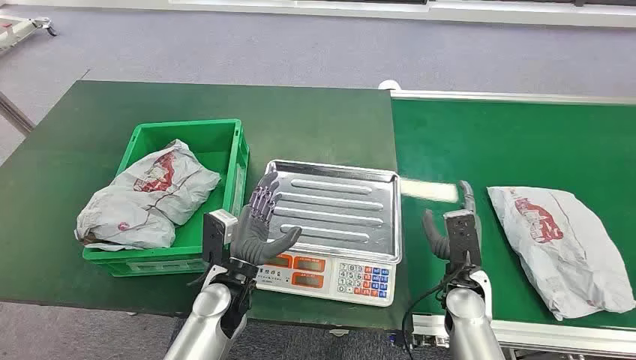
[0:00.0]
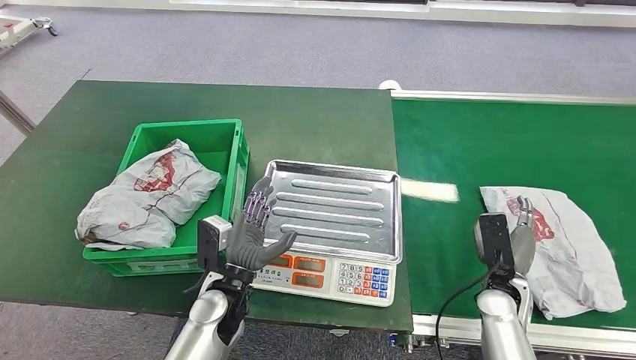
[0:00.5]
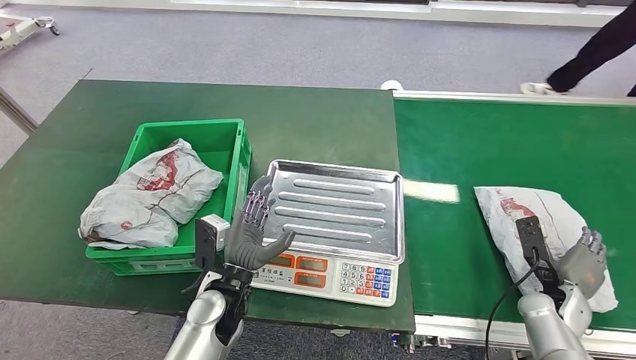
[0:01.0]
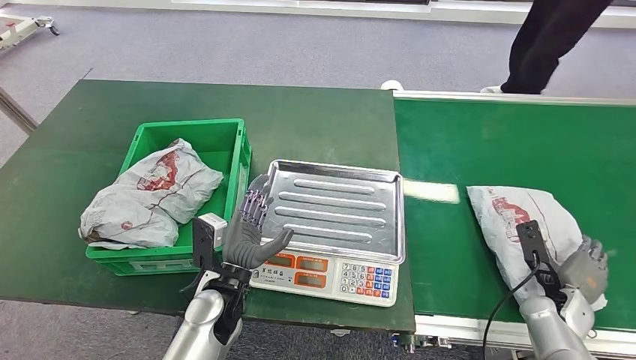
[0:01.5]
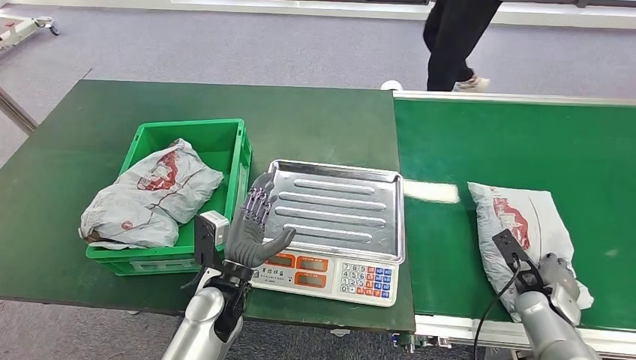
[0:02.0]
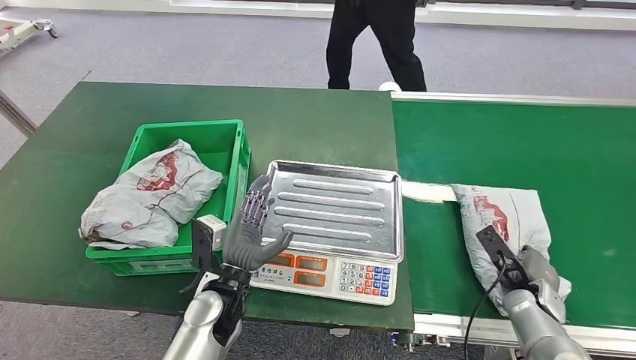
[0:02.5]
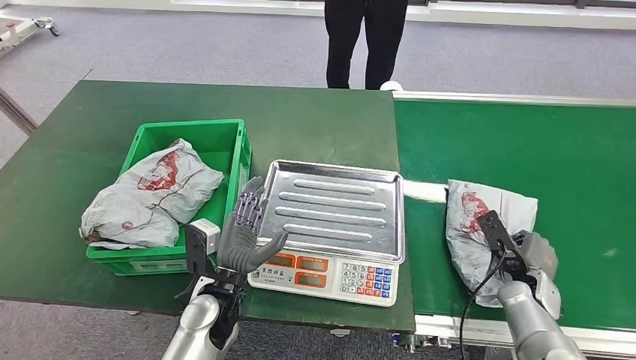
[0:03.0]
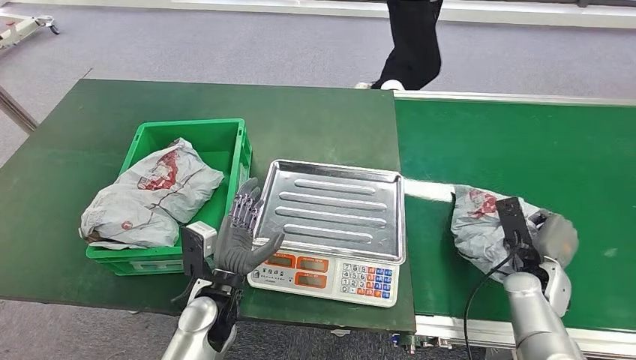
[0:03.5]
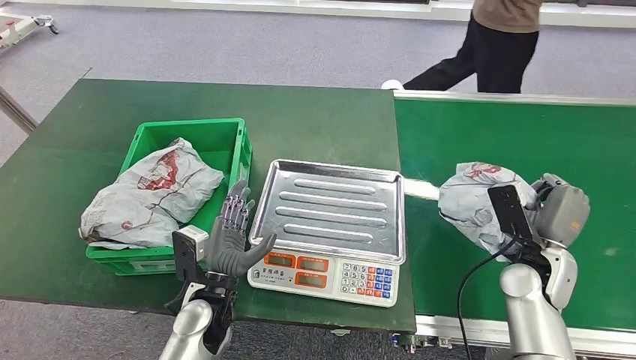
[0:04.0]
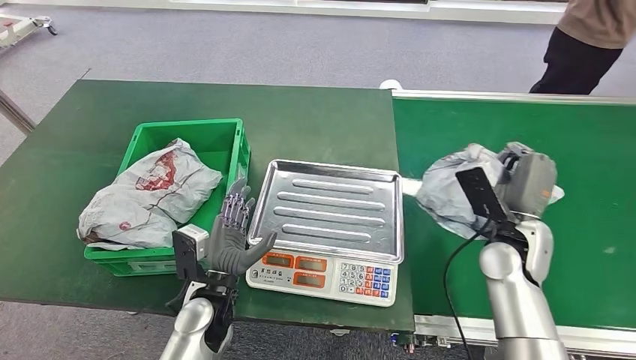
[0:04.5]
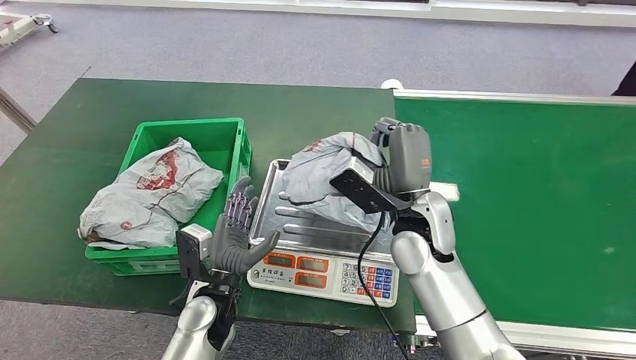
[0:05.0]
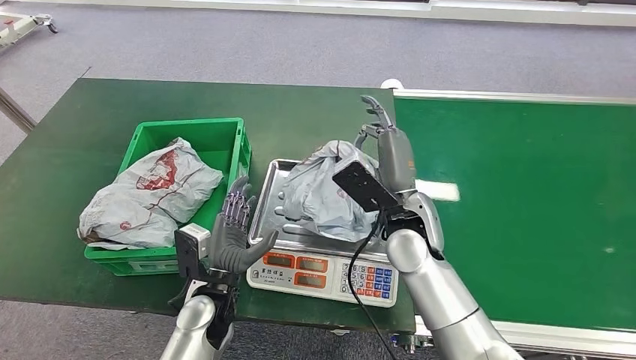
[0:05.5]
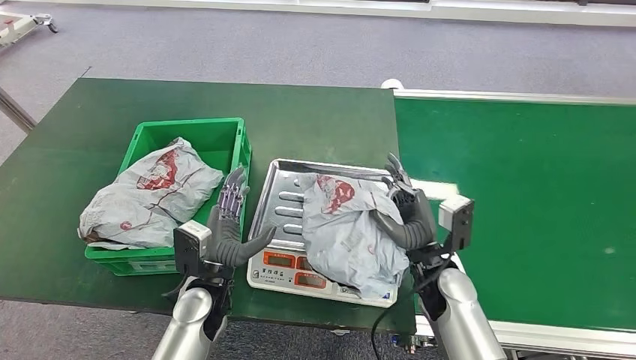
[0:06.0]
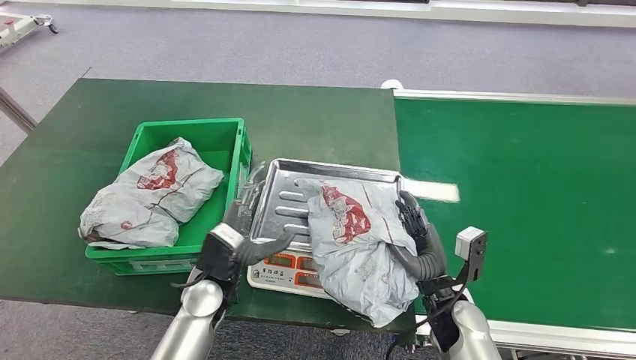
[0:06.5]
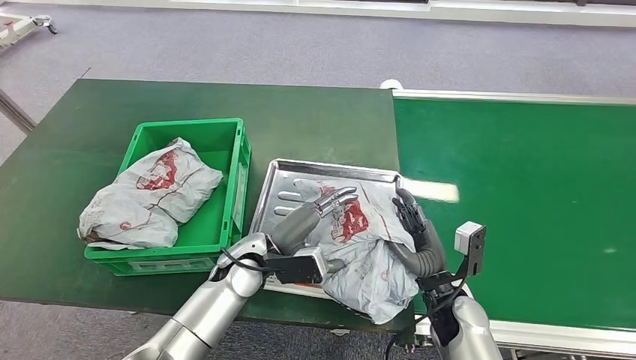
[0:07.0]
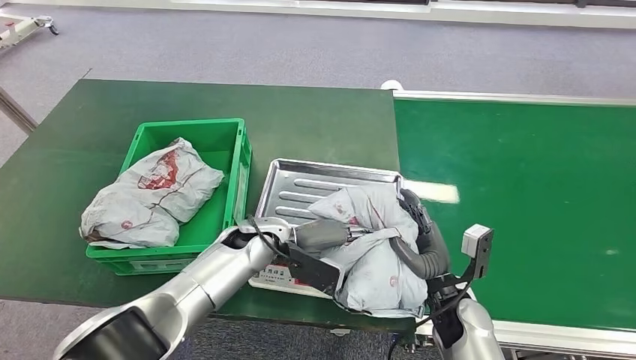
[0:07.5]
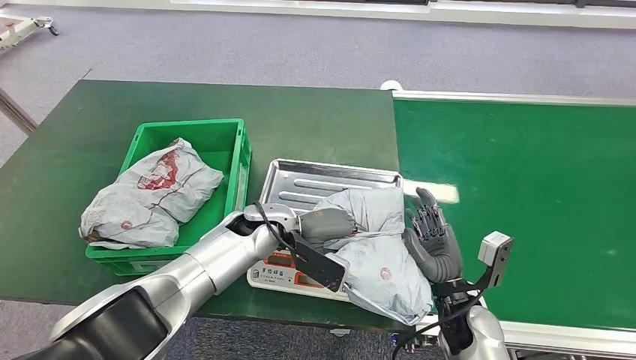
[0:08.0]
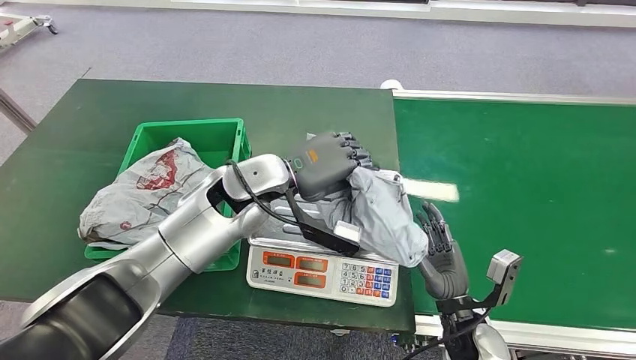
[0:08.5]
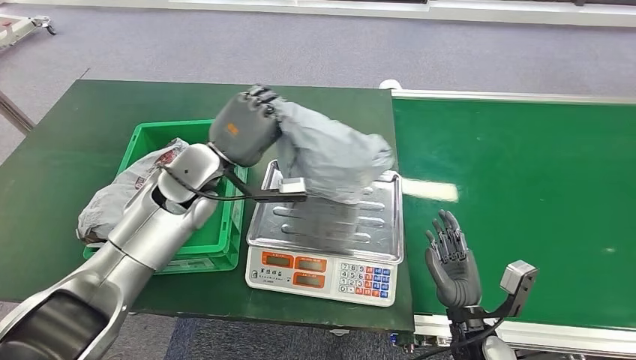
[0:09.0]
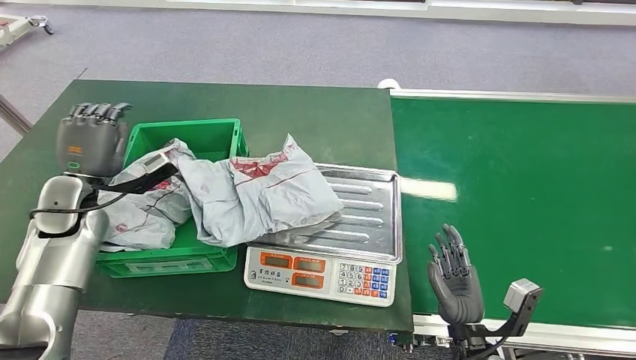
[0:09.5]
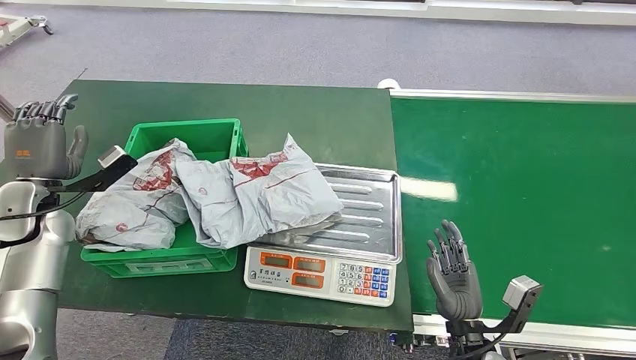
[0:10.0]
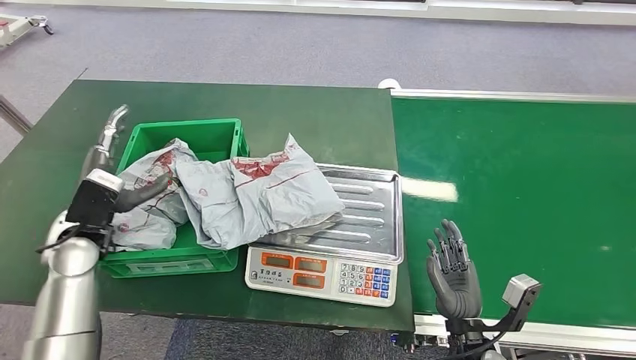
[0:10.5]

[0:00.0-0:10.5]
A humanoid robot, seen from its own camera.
Step, 0:00.0 to 0:03.5: Pick up the package from the conveyor belt.
Step, 0:04.0 to 0:06.0: Place the package onto the inbound machine.
Step, 0:06.5 to 0:08.5: Pick up the package from the inbound machine.
0:02.0 to 0:04.0: The right hand moves upward and to the left, roughly 15 cm.

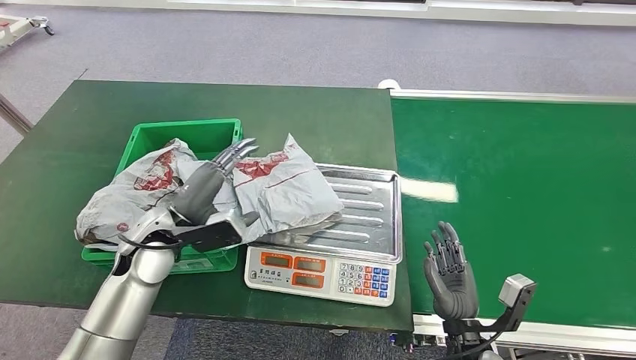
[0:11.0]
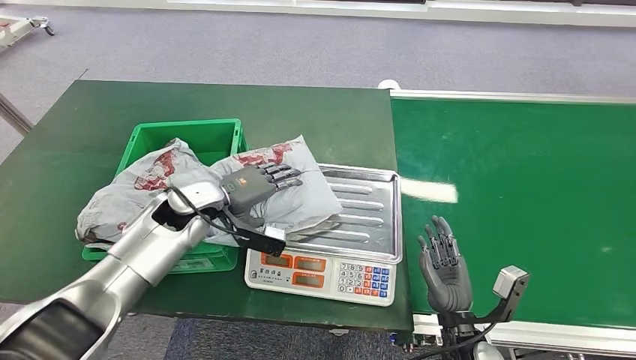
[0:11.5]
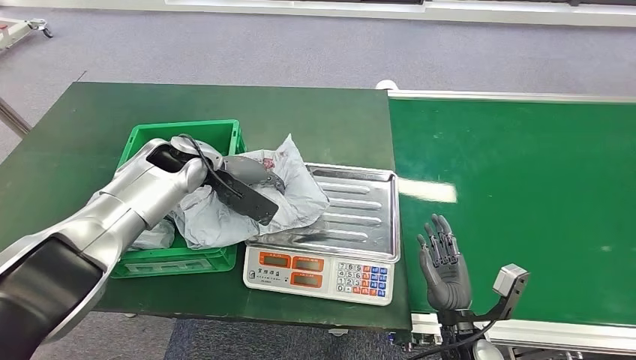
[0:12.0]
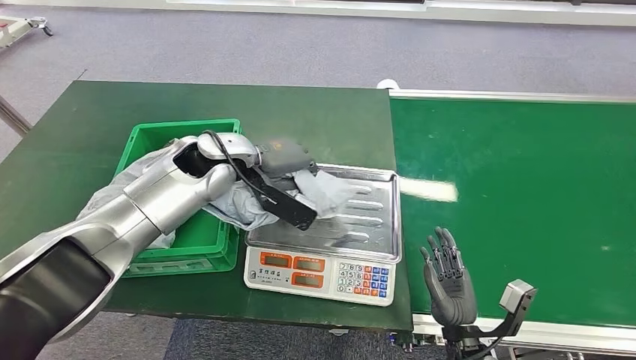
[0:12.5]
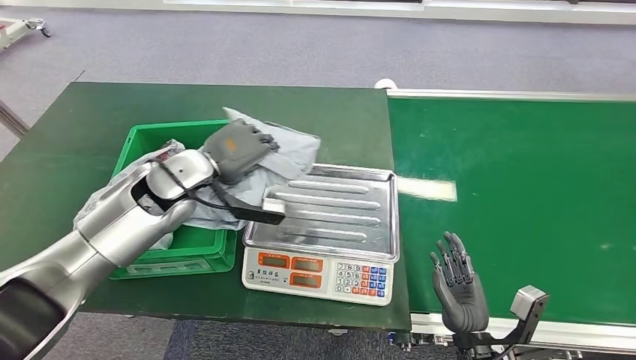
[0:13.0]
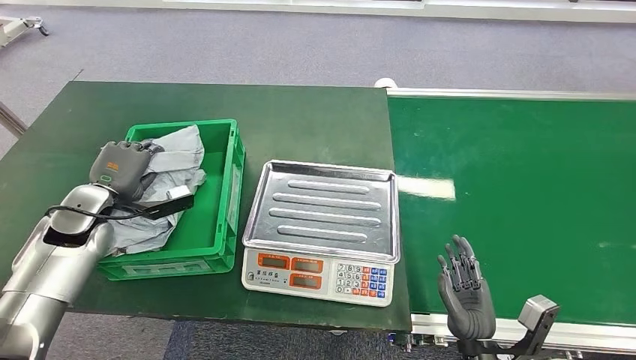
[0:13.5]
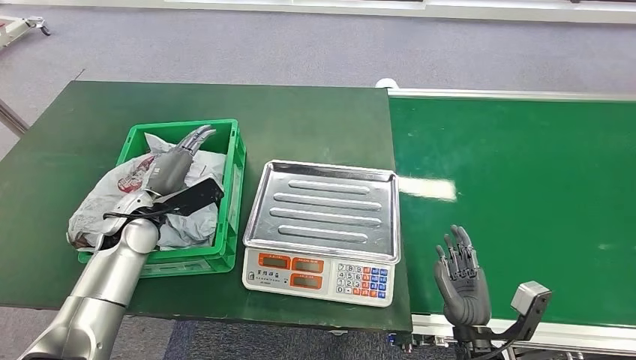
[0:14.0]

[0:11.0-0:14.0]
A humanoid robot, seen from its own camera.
Step, 0:13.0 to 0:14.0: Place the package into the parcel locker.
0:11.0 to 0:12.5: The left hand shifts some 15 cm forward, upward and to the right.
